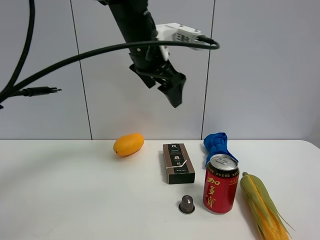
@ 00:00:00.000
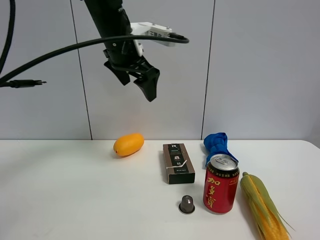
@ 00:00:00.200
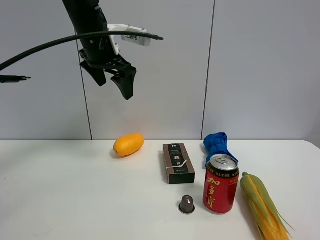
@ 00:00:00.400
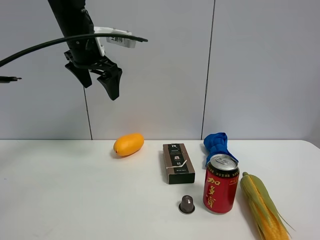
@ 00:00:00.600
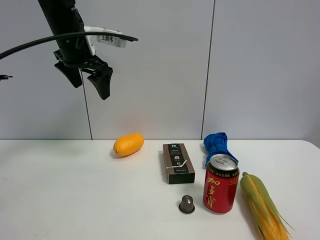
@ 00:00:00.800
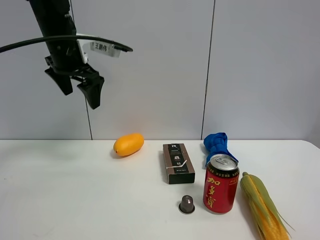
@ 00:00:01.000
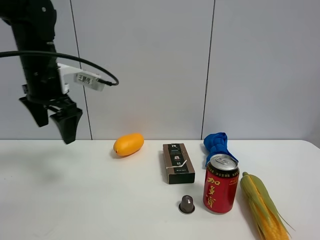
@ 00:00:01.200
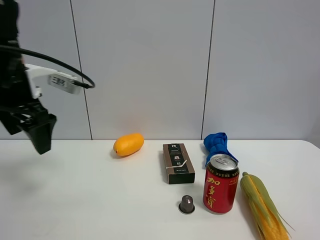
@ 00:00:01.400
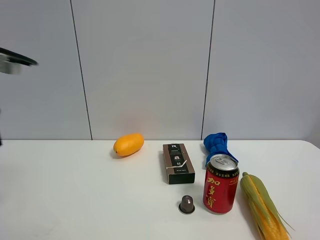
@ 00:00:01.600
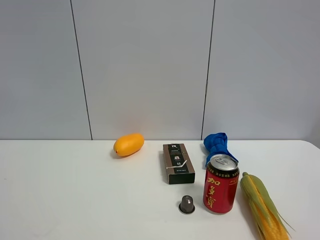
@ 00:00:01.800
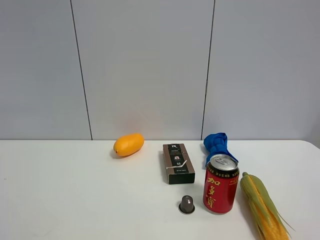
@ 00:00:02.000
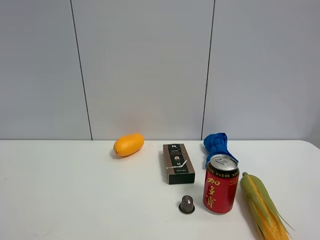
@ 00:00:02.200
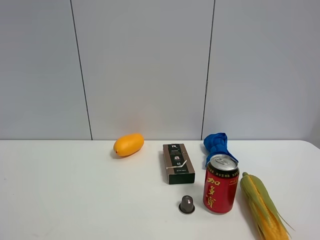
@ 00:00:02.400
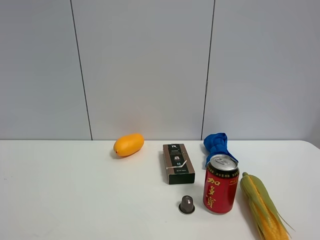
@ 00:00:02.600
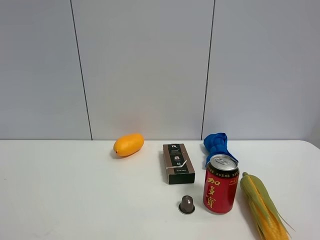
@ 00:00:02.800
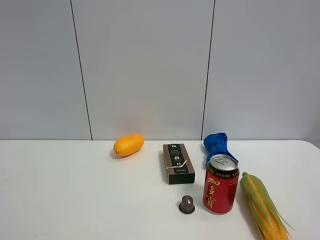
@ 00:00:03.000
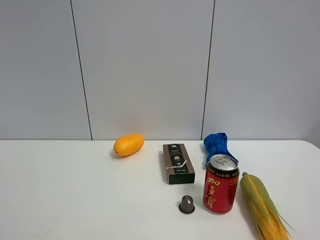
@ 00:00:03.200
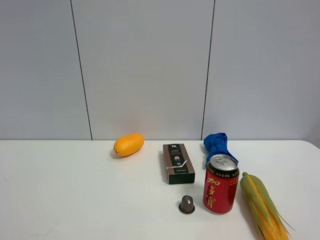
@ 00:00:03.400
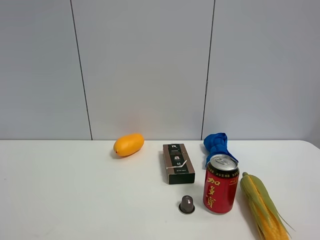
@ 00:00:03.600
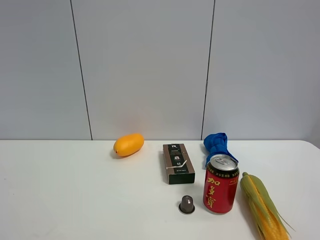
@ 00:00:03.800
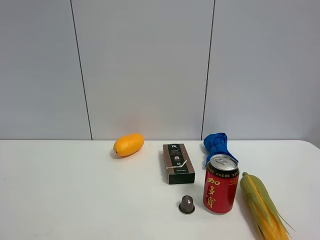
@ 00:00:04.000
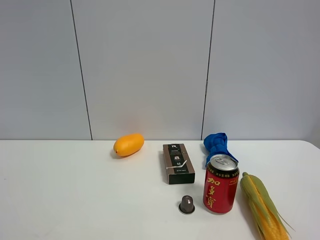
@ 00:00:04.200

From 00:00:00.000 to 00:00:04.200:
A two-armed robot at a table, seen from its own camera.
Task of the whole recording: the gripper move the object.
From 00:00:00.000 to 00:00:01.400: The left gripper goes some 20 cm to the left.
From 00:00:01.400 to 00:00:02.800: The left gripper goes approximately 35 cm backward.
From 00:00:02.800 to 00:00:04.200: Both grippers stay about where they are.

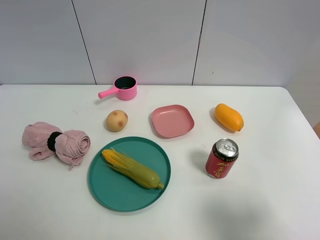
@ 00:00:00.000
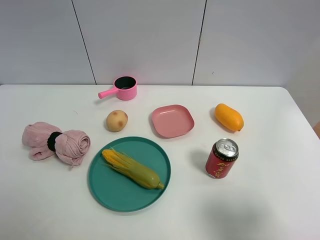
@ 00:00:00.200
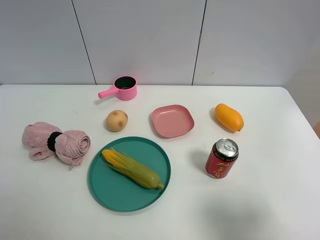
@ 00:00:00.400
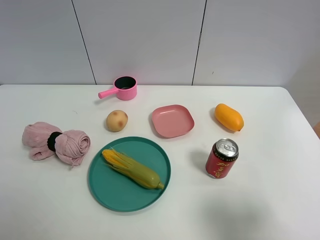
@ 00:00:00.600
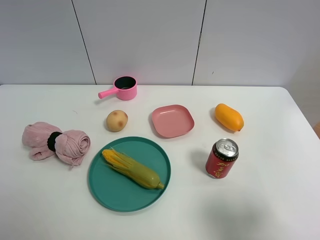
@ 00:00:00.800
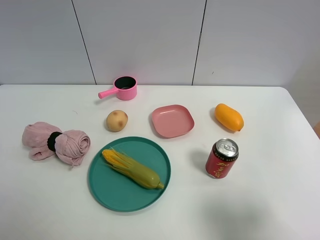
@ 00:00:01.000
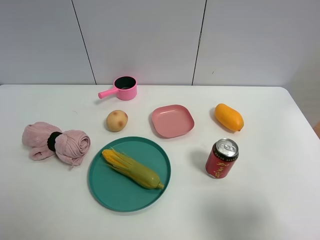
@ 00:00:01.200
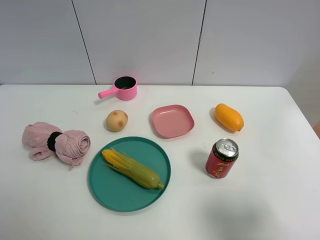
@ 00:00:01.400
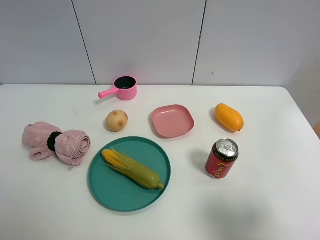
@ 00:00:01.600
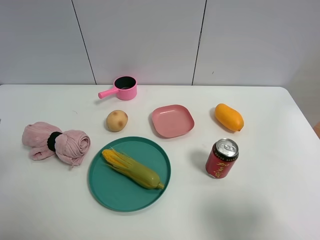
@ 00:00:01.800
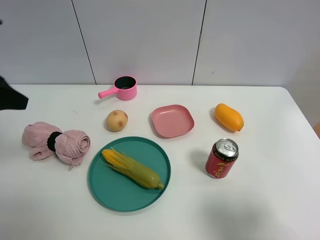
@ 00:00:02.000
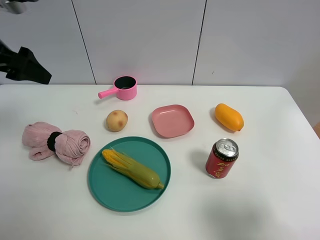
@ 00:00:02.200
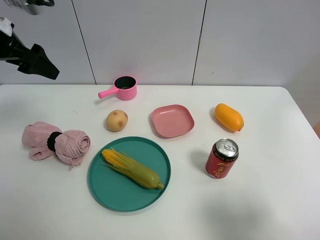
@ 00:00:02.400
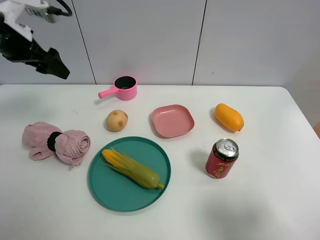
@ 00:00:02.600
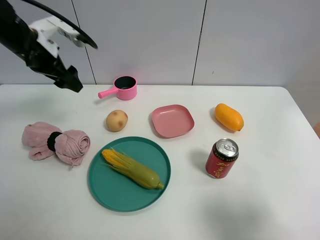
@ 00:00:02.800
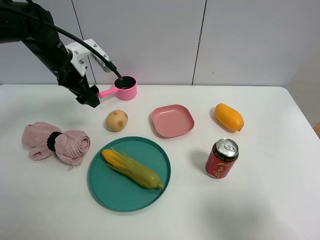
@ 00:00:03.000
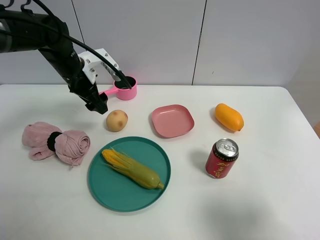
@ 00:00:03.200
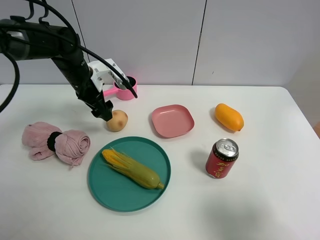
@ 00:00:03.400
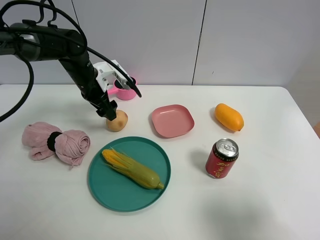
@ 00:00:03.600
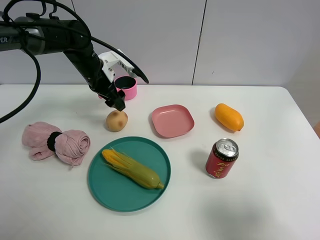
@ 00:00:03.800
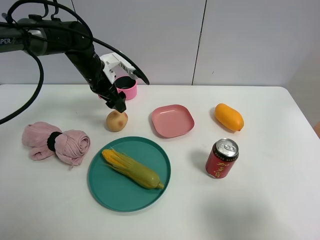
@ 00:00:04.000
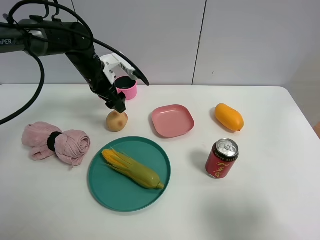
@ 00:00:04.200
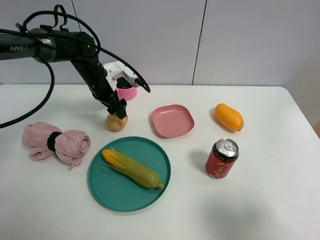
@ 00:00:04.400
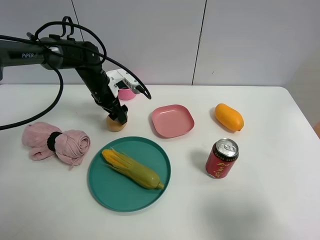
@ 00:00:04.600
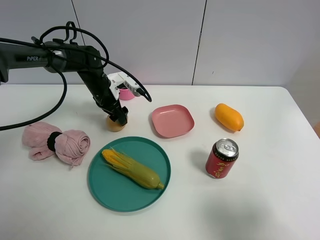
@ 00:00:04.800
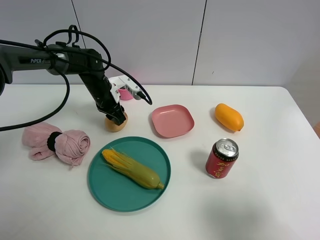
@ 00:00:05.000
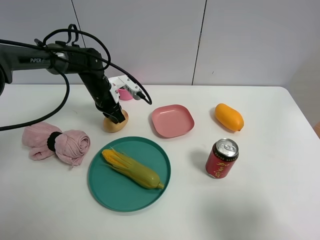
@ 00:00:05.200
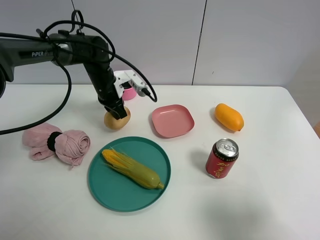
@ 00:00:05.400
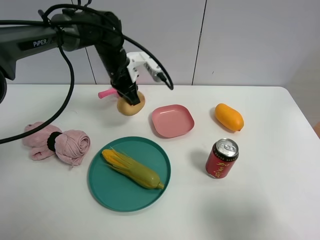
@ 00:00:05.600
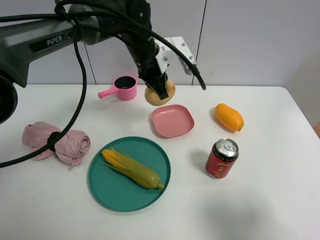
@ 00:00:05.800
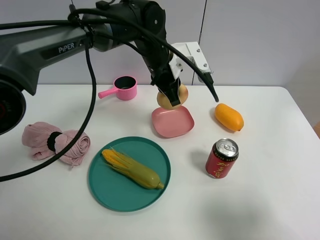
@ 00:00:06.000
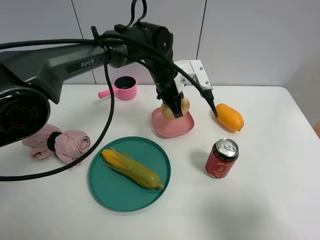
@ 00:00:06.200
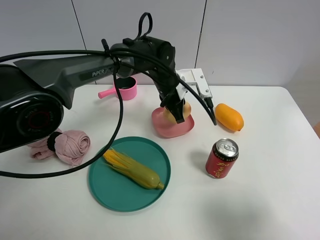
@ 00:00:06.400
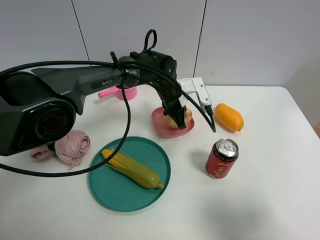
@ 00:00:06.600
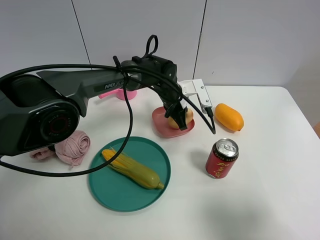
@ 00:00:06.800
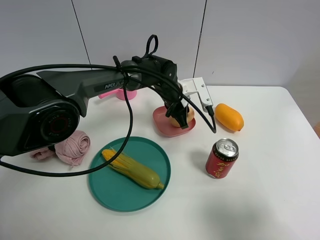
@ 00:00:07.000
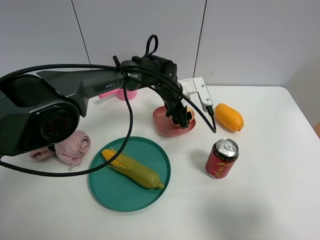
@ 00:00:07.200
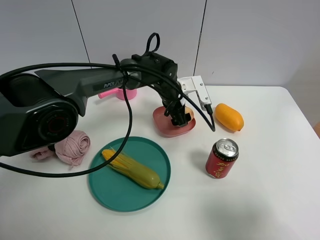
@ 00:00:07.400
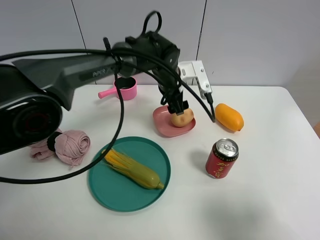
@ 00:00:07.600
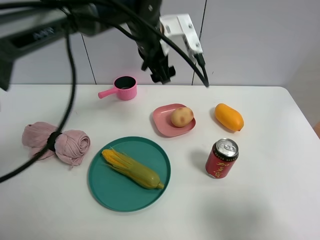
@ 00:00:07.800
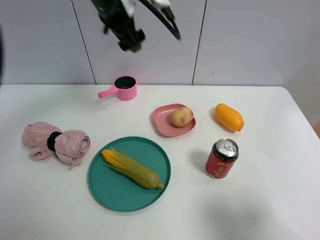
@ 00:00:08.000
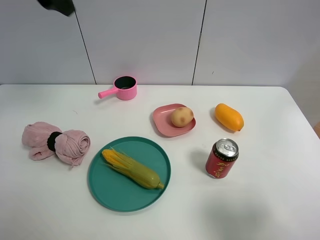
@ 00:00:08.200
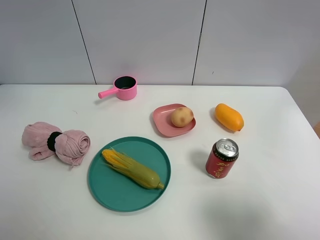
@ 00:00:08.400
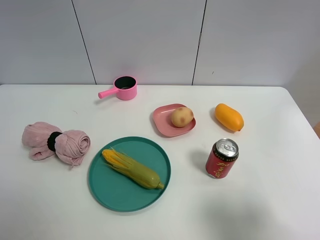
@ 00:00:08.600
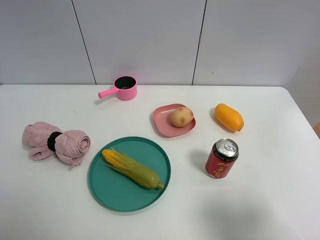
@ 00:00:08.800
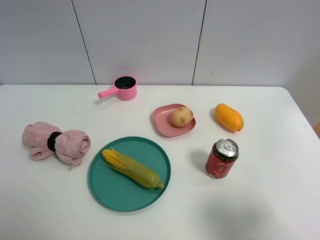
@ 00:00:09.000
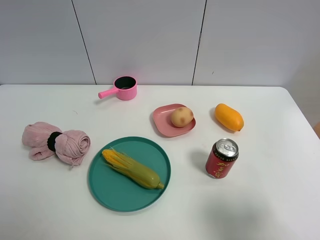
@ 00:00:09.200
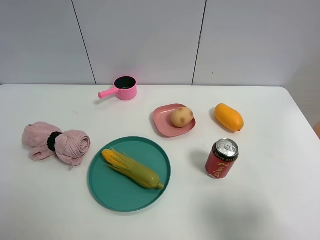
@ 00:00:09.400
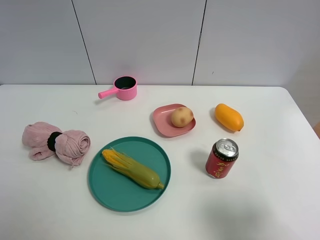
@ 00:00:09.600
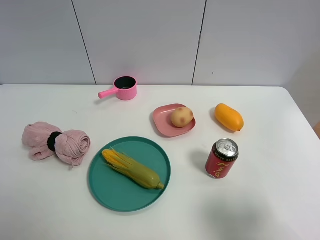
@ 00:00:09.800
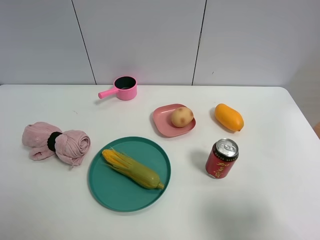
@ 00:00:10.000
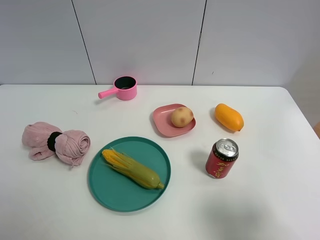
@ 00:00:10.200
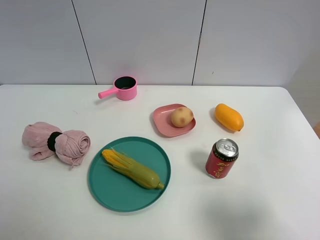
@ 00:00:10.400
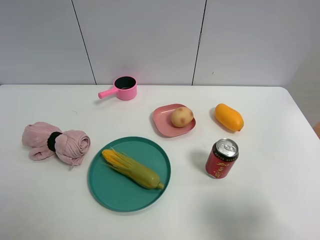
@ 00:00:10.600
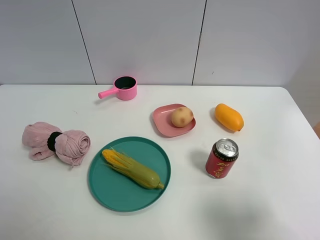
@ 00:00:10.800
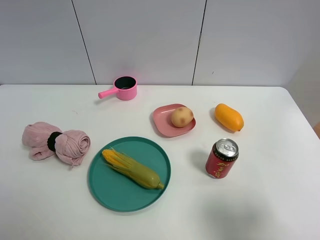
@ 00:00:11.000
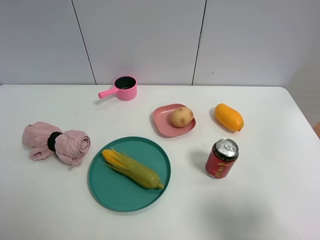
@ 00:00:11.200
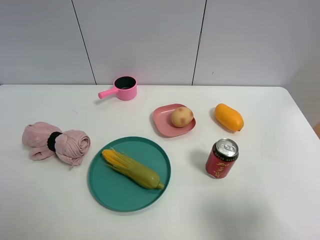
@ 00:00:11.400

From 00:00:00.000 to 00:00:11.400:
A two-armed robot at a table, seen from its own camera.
Task of the whole recording: the gripper move the object.
Step, from 00:00:00.000 to 00:00:05.200: Grasp the egg yolk pastry with the left gripper.
Step, from 00:00:05.400 to 00:00:07.600: Place the egg yolk pastry into the pink plate with the left gripper.
From 00:00:01.400 to 00:00:02.800: The left gripper travels forward by roughly 35 cm.
From 00:00:02.800 to 00:00:04.200: The left gripper heads downward and to the right, covering roughly 15 cm.
From 00:00:04.200 to 00:00:05.600: The left gripper heads to the right, covering approximately 5 cm, moves roughly 5 cm downward and comes back, and closes up.
From 00:00:05.600 to 00:00:07.200: The left gripper travels to the right and downward by roughly 15 cm, and opens its fingers.
From 00:00:07.200 to 00:00:08.600: The left gripper moves upward, to the left and backward, about 60 cm.
